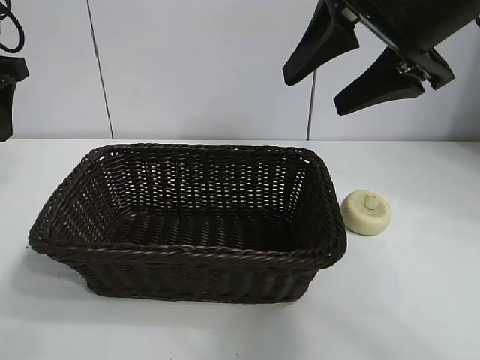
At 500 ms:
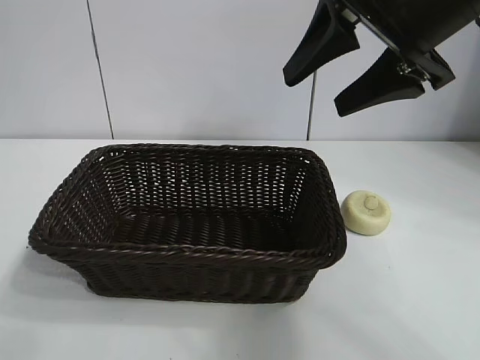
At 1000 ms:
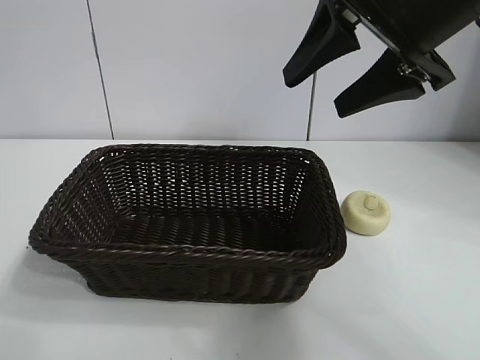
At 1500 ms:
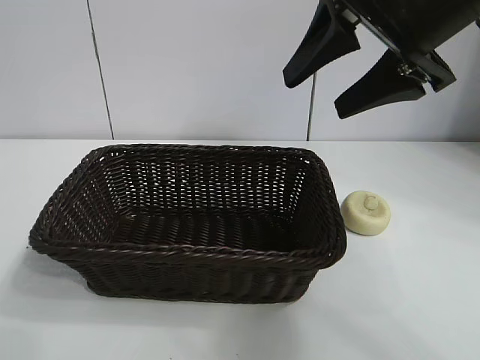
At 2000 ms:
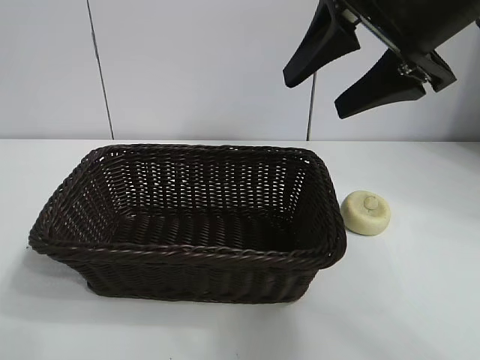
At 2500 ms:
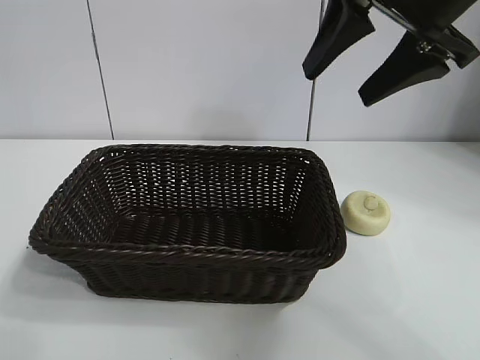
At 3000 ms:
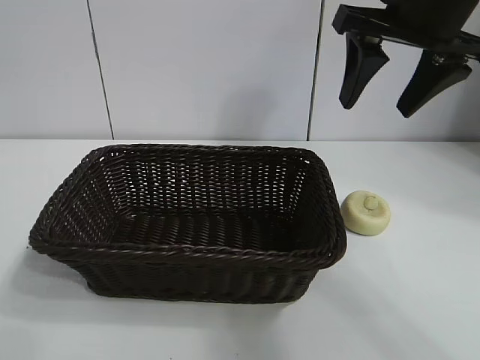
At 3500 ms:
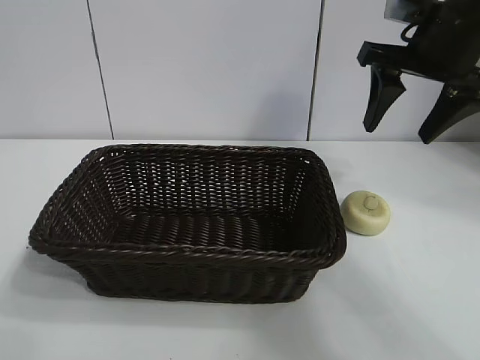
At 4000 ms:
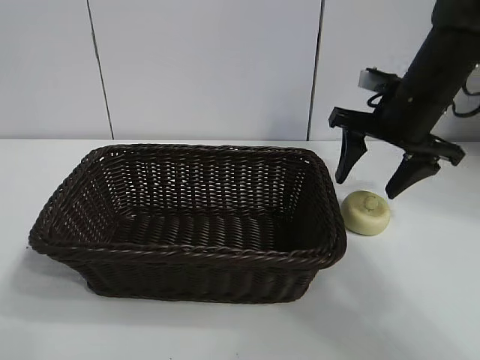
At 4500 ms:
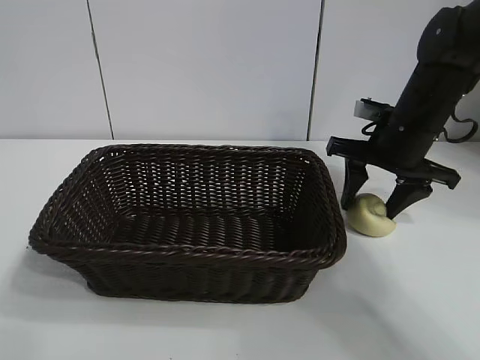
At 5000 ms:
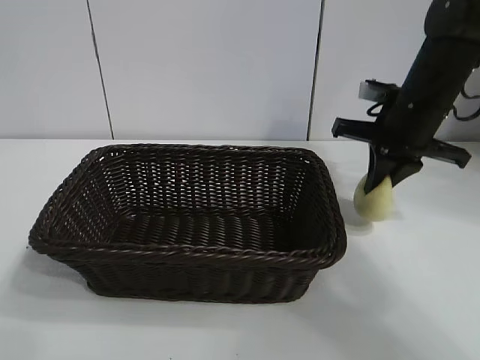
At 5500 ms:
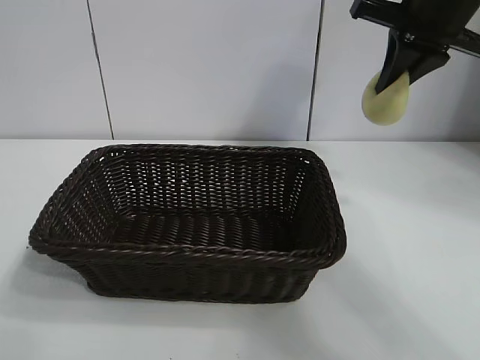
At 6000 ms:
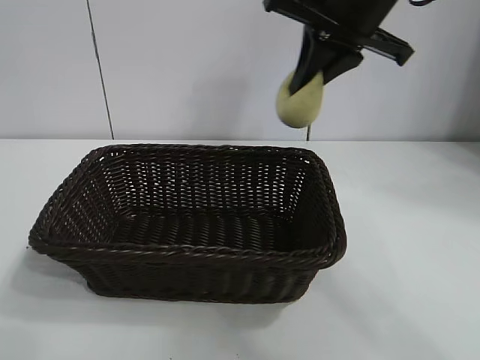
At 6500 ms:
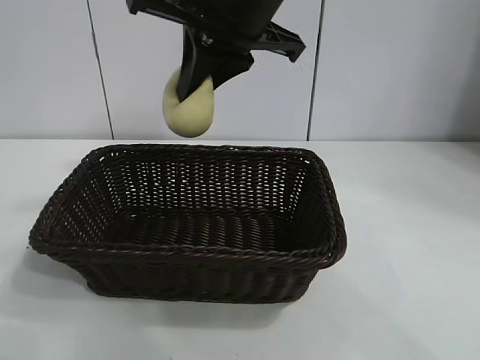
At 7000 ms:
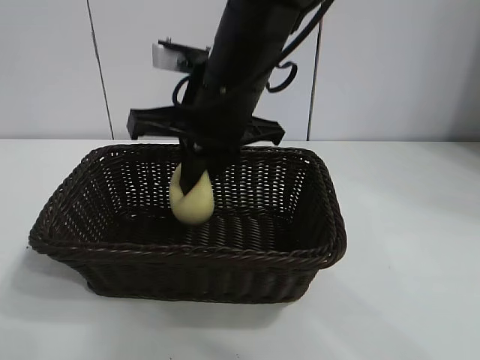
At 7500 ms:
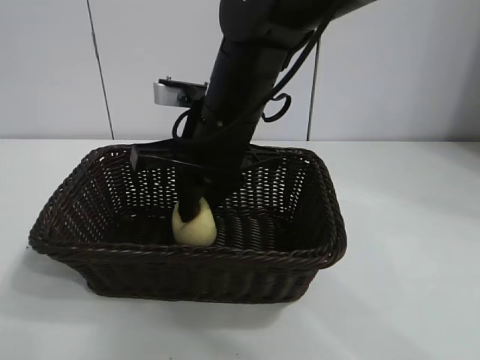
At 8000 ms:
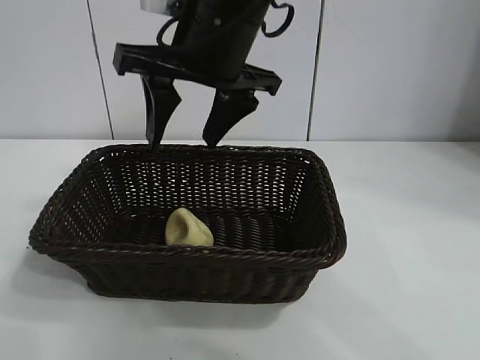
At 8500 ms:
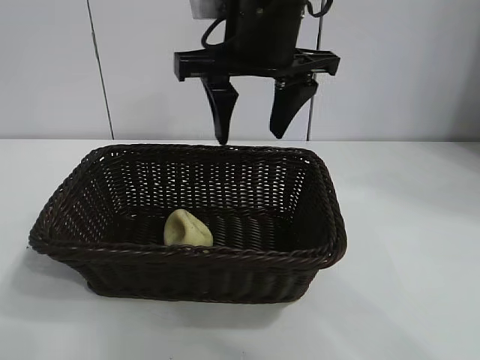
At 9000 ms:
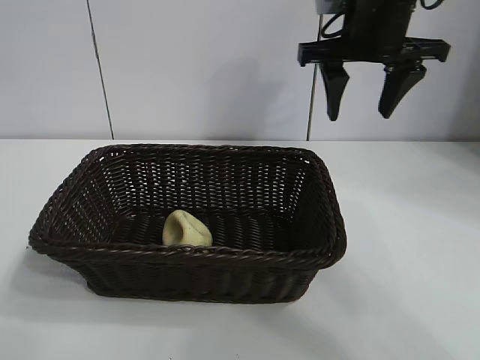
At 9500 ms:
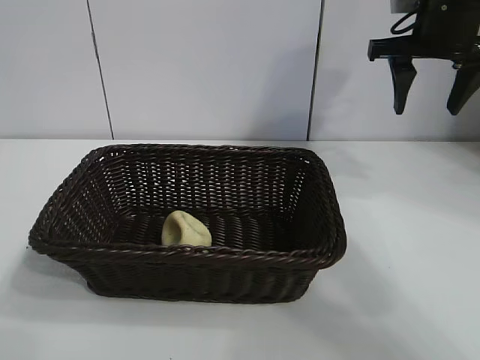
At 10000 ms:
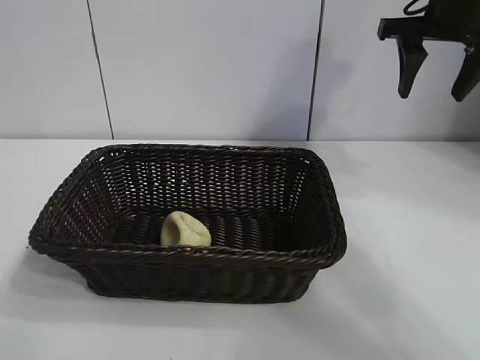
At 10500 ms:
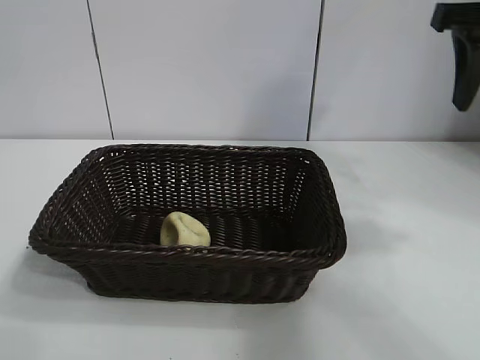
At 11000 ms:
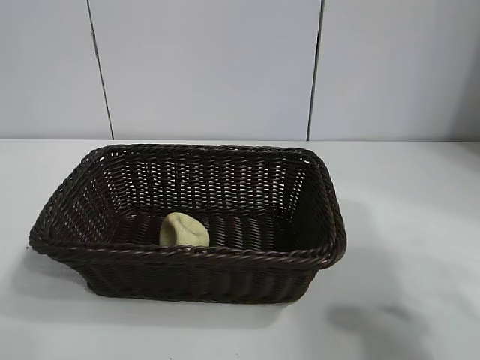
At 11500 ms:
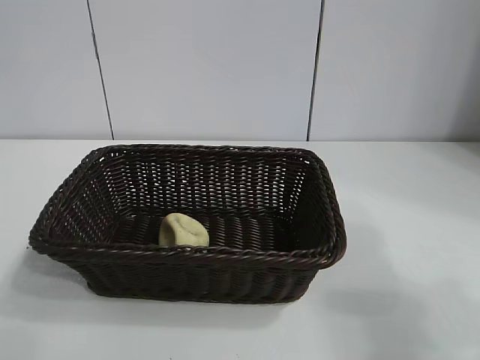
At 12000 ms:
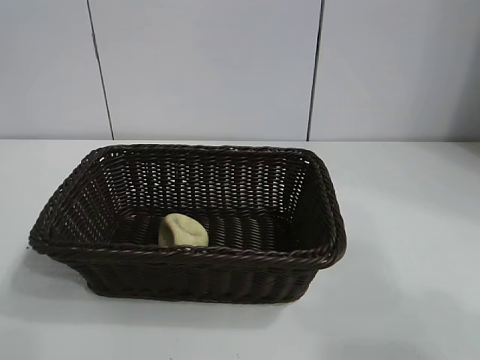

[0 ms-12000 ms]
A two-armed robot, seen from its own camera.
Task of the whole recording: pick up the egg yolk pastry and put it into the basket.
Step, 0 ms to 4500 ms: Grasp egg yolk pastry with right gripper.
Step, 5000 ms to 7500 ms: Place the egg yolk pastry in the basket with right gripper.

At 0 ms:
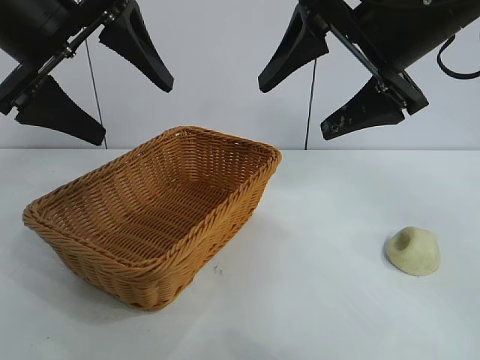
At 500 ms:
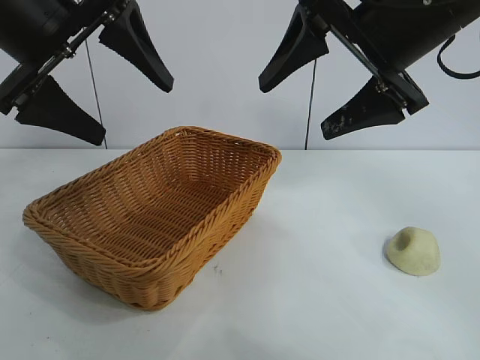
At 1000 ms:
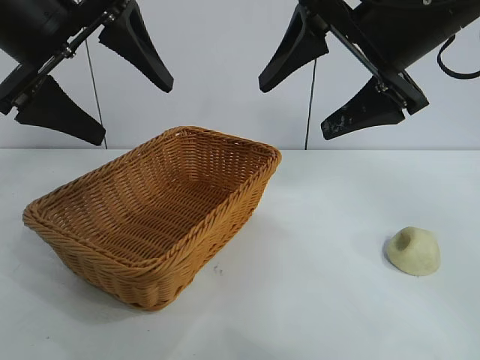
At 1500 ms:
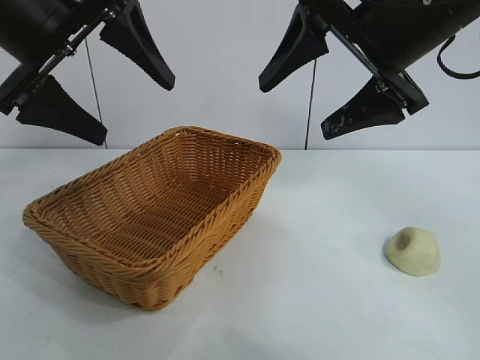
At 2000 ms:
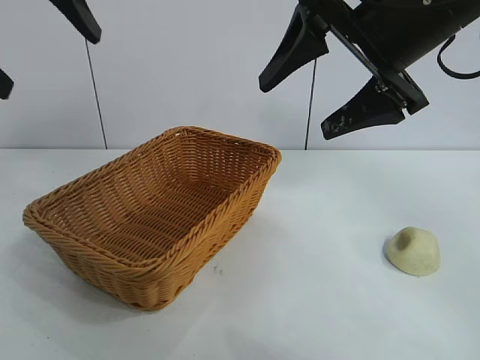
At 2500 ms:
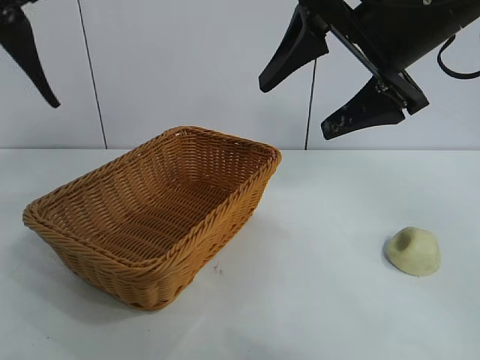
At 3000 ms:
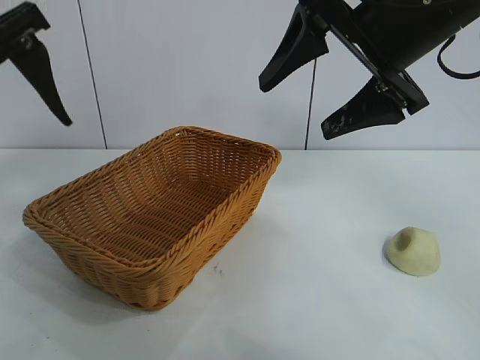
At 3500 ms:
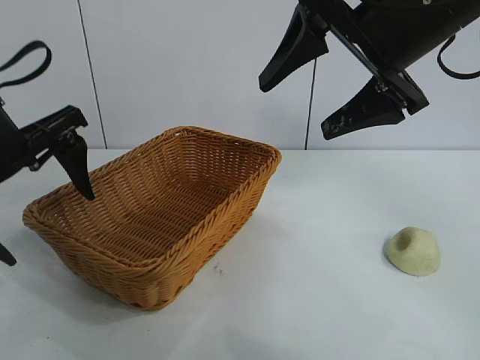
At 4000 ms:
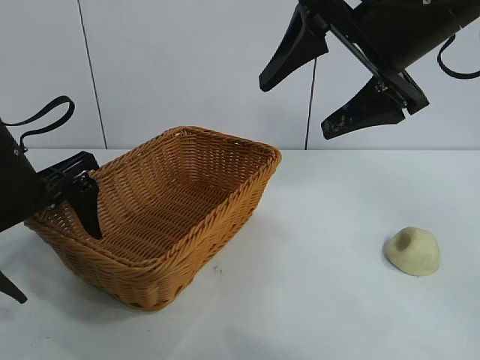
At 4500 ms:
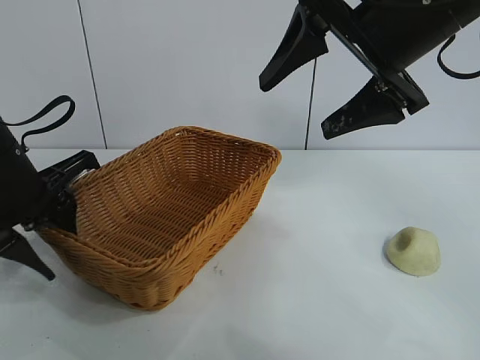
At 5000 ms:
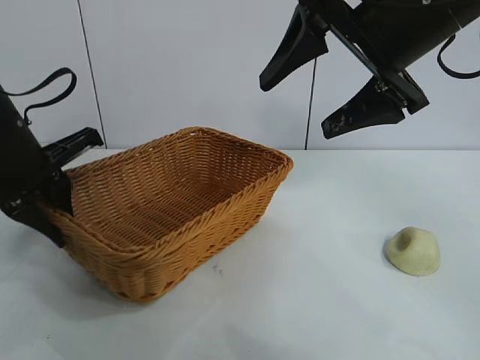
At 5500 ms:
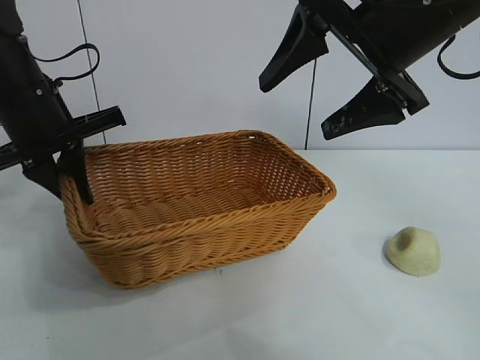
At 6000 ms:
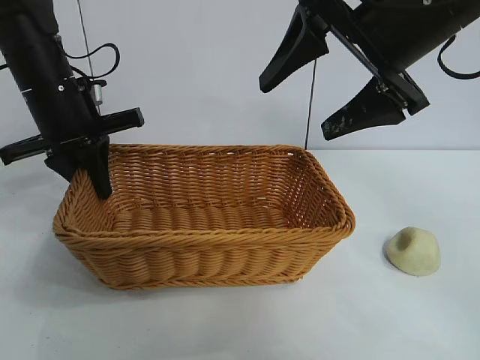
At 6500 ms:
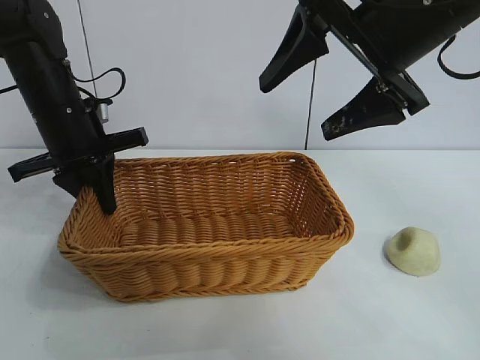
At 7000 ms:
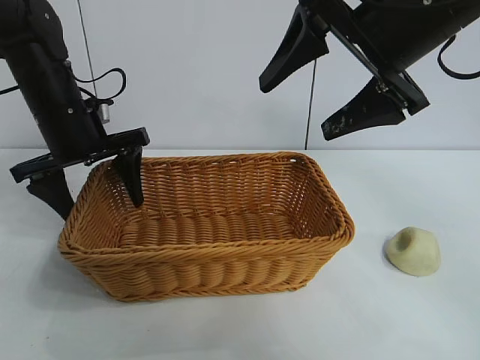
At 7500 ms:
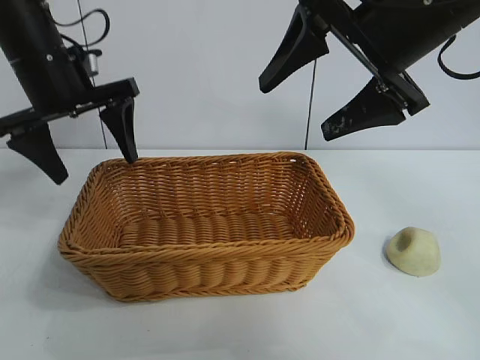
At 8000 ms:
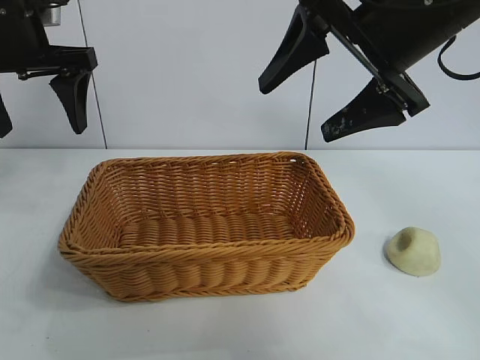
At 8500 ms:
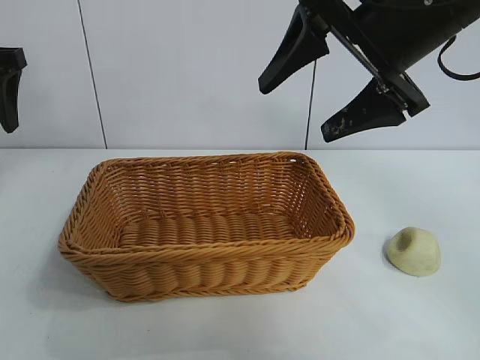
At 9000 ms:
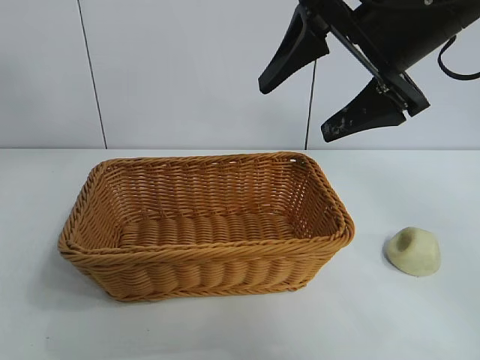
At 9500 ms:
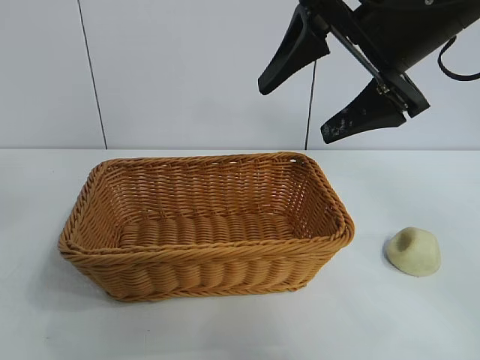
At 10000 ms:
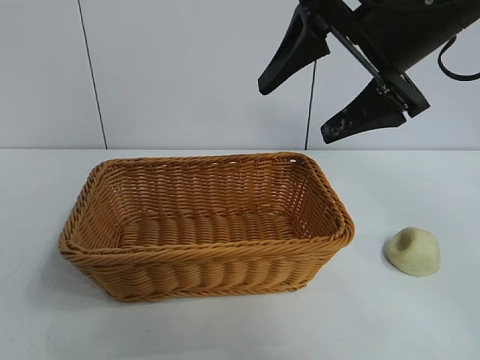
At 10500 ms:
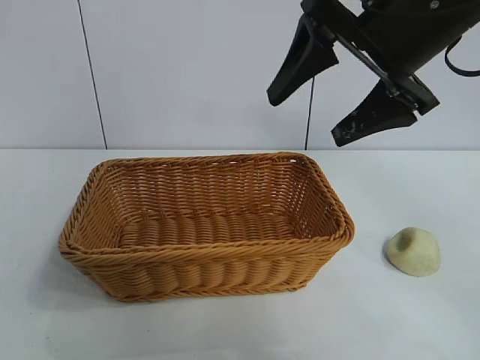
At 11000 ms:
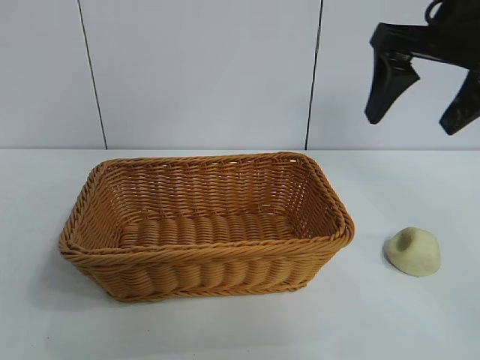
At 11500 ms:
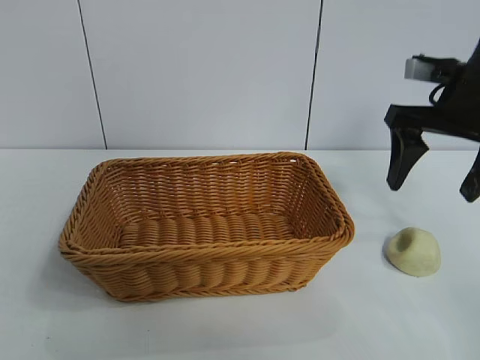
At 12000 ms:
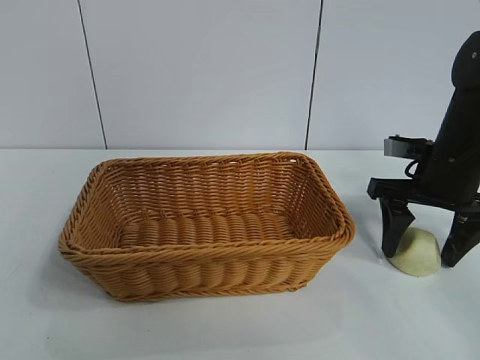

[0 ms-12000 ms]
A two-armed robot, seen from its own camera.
Task of the whole recording: pick up the egg yolk pastry and put it into the basket.
Step, 1500 ms to 4500 ms: Grasp the basket with left gripper.
Step, 5000 ms to 6500 ms: Place the basket in the center of view with left gripper.

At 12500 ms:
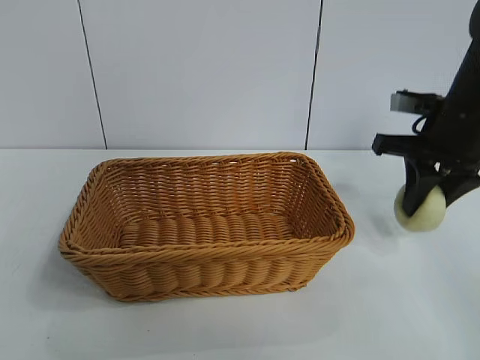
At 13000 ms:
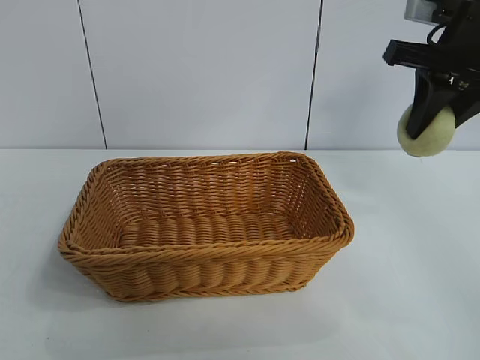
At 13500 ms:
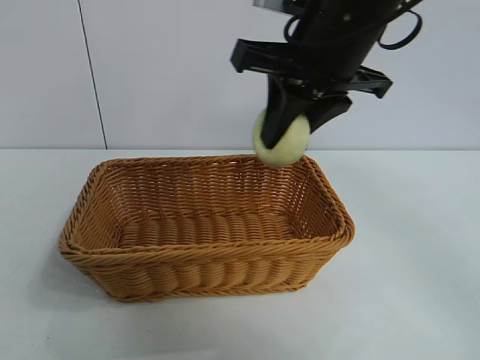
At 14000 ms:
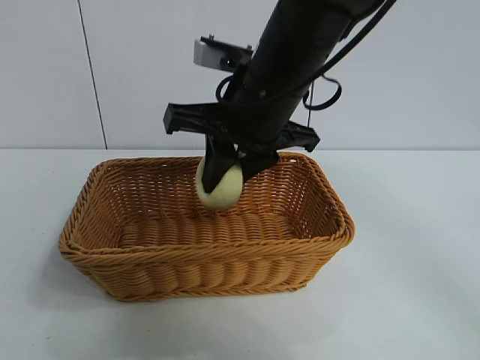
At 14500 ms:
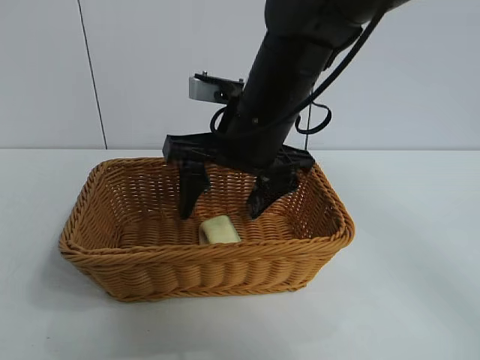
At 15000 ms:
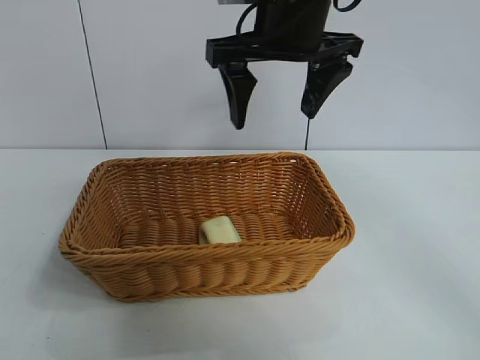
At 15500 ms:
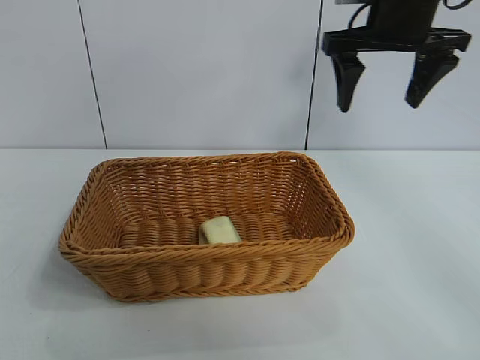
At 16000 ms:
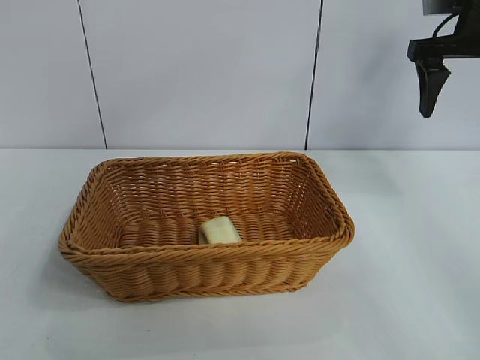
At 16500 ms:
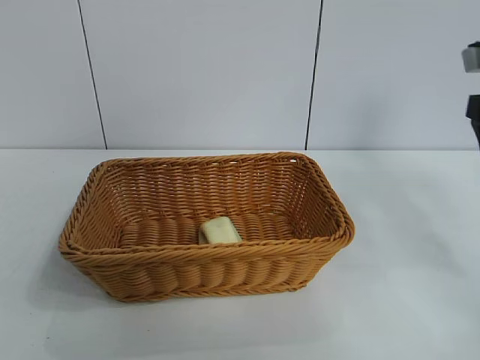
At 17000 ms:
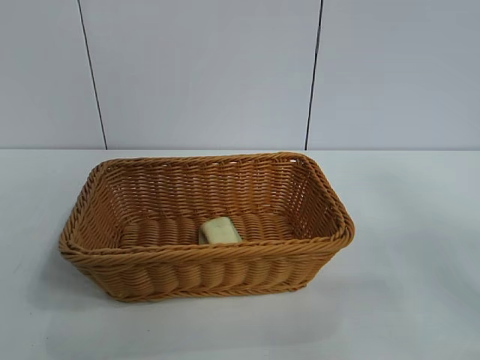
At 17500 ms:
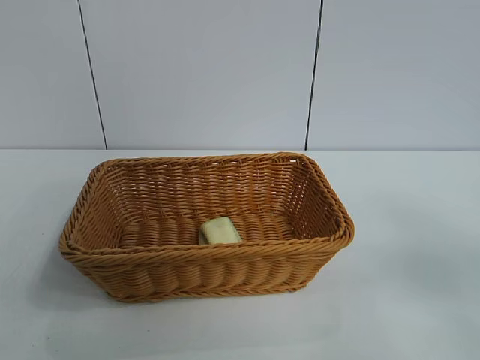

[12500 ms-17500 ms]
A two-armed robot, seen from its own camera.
Task of the whole recording: pick up the egg yolk pastry and put it into the basket.
Step, 12500 ms to 14000 ms: Place the egg yolk pastry in the basket with right gripper.
